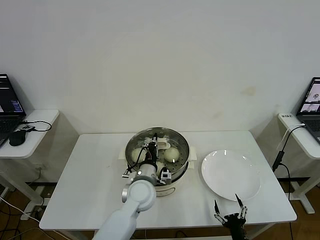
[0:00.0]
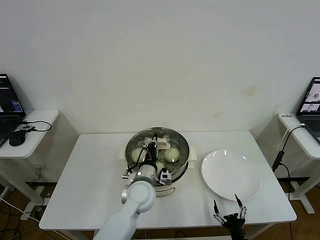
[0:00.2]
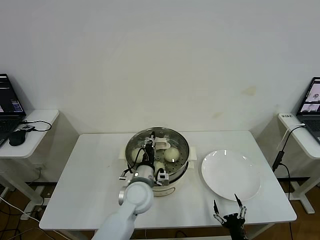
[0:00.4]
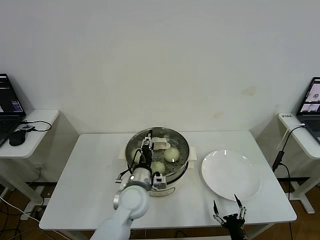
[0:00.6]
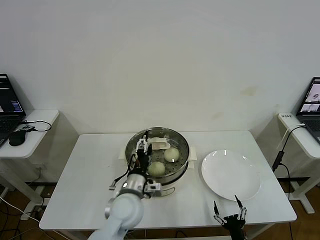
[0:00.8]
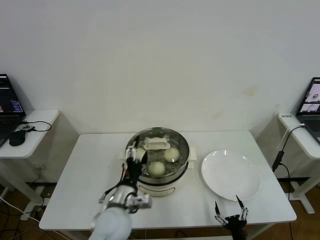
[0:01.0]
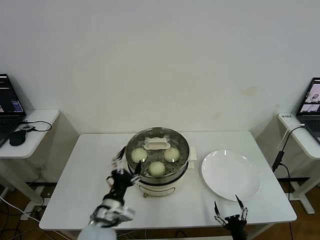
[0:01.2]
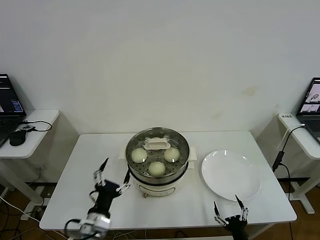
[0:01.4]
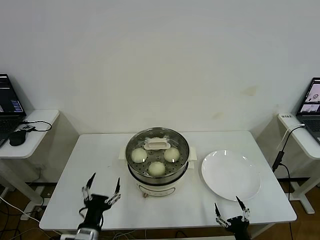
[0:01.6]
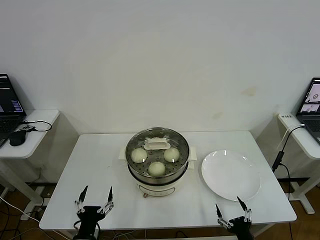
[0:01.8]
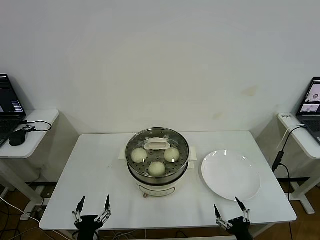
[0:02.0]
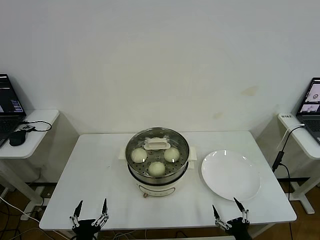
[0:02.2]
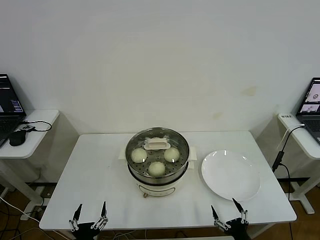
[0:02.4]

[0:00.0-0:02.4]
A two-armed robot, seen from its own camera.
0:00.0 to 0:01.2: The left gripper heads backward and to the left, covering about 15 cm, and opens.
0:01.2 to 0:02.4: The right gripper is displaced upward by approximately 5 cm. The left gripper heads backward, downward and to the left, covering roughly 20 cm.

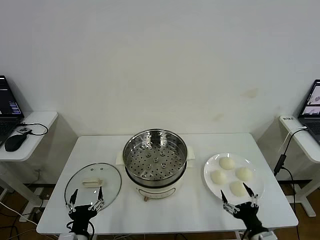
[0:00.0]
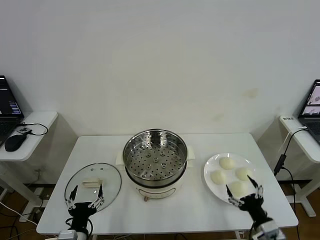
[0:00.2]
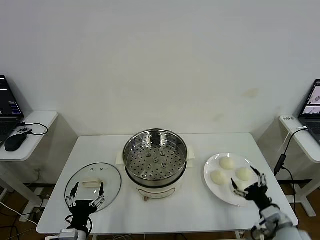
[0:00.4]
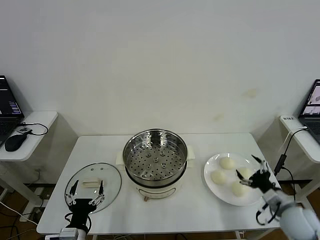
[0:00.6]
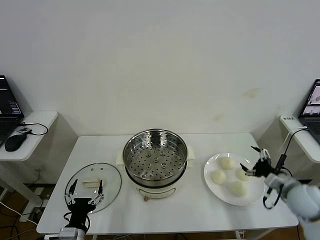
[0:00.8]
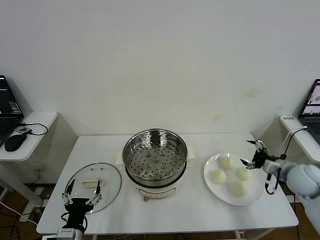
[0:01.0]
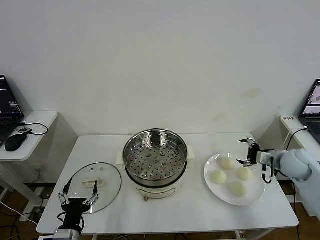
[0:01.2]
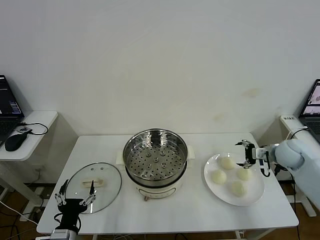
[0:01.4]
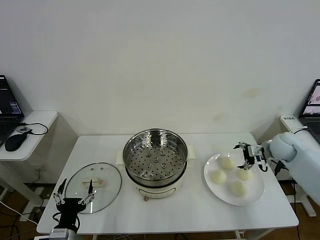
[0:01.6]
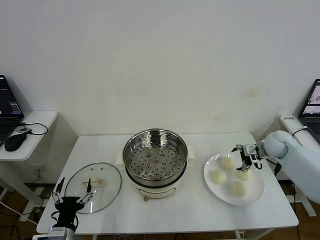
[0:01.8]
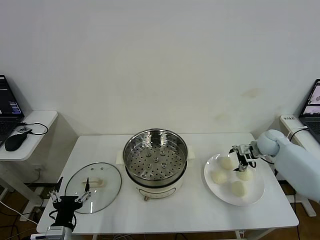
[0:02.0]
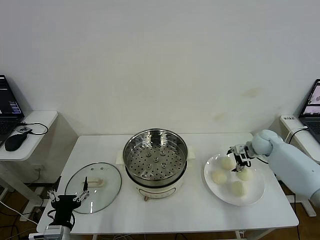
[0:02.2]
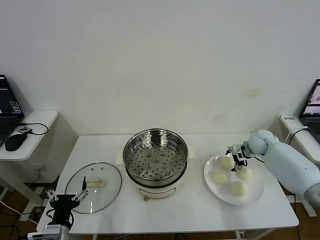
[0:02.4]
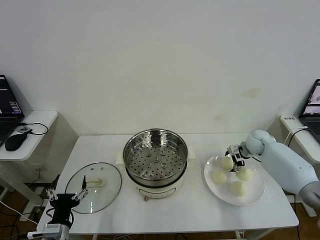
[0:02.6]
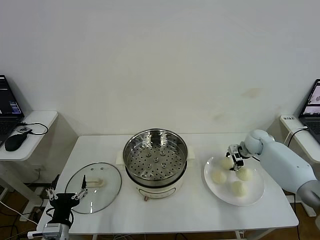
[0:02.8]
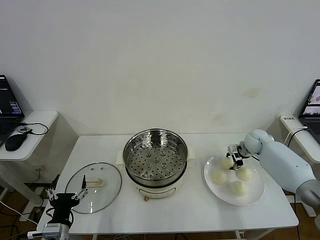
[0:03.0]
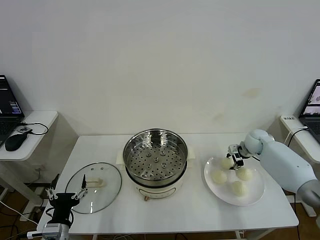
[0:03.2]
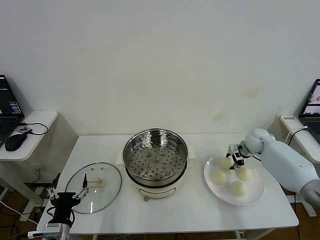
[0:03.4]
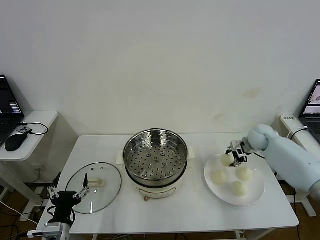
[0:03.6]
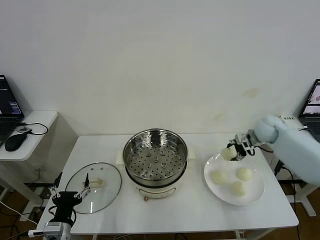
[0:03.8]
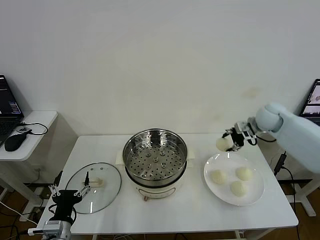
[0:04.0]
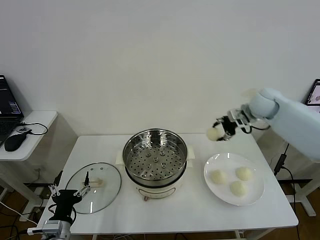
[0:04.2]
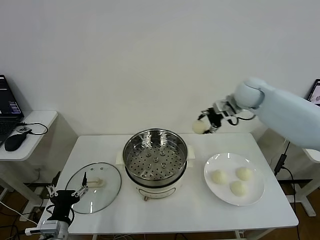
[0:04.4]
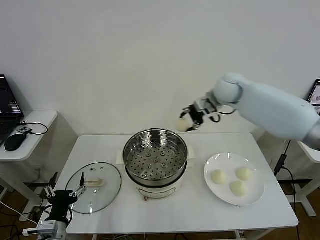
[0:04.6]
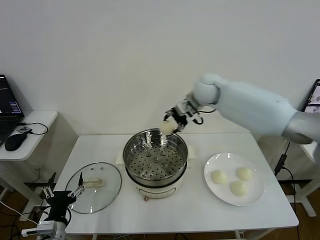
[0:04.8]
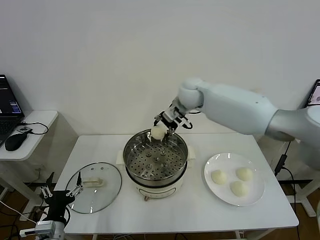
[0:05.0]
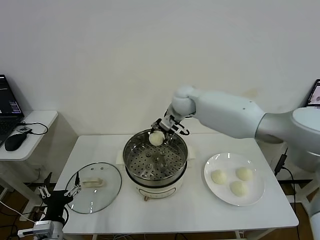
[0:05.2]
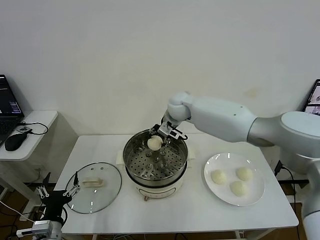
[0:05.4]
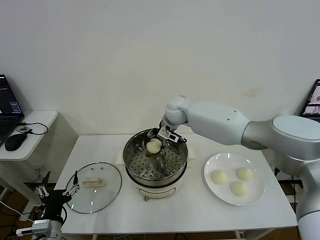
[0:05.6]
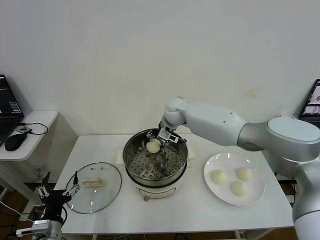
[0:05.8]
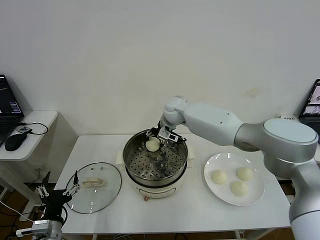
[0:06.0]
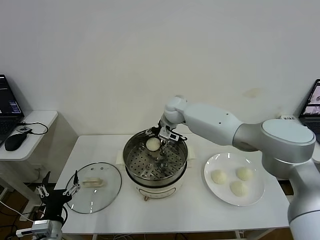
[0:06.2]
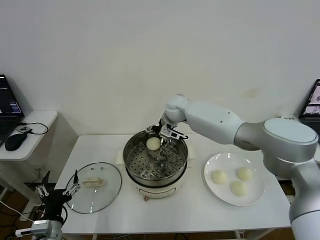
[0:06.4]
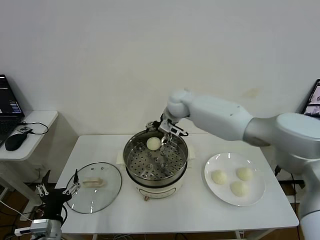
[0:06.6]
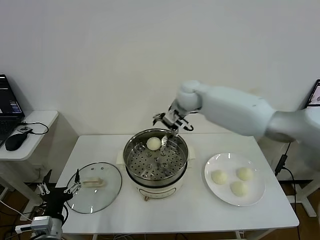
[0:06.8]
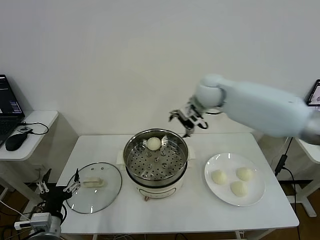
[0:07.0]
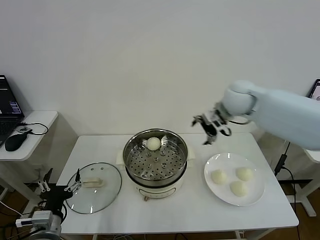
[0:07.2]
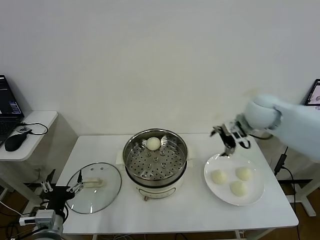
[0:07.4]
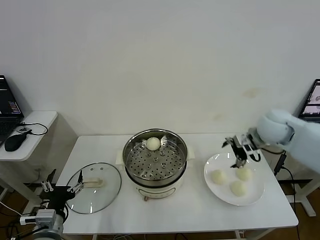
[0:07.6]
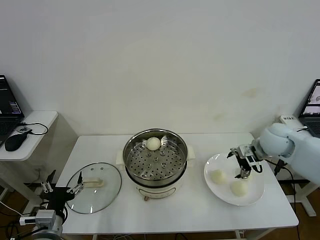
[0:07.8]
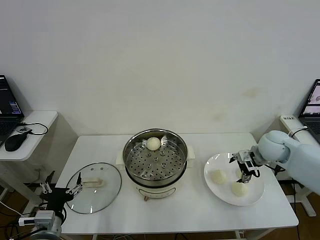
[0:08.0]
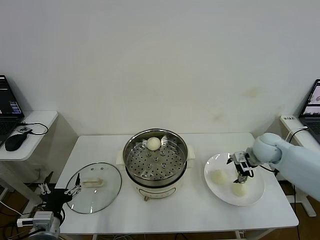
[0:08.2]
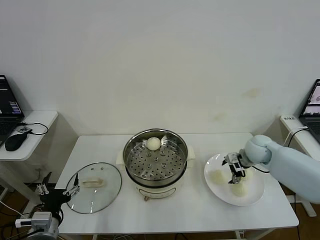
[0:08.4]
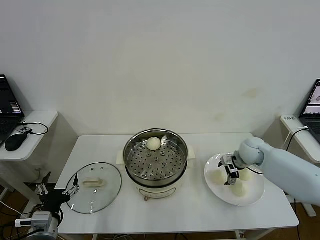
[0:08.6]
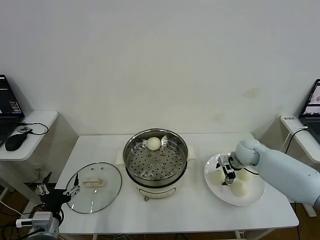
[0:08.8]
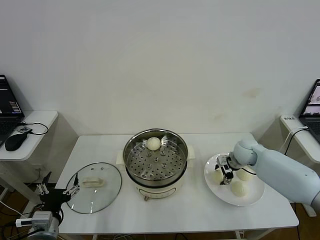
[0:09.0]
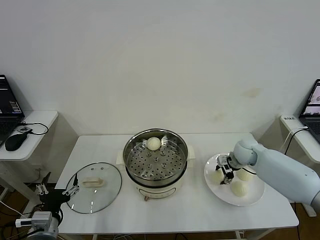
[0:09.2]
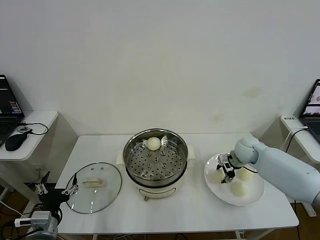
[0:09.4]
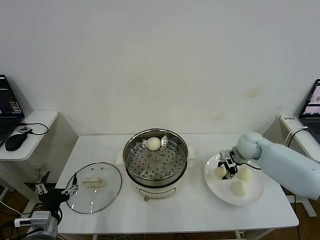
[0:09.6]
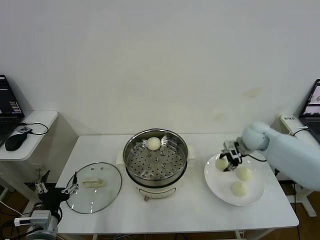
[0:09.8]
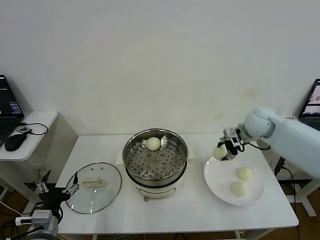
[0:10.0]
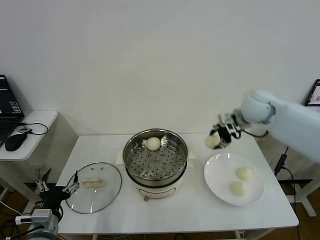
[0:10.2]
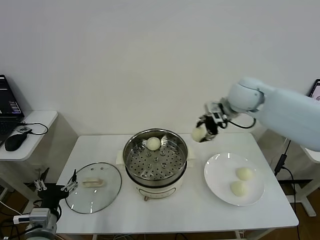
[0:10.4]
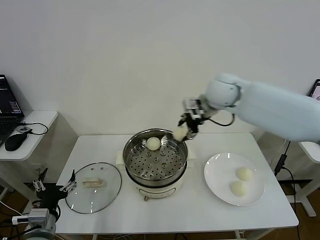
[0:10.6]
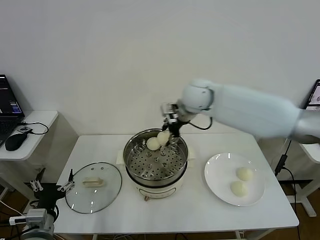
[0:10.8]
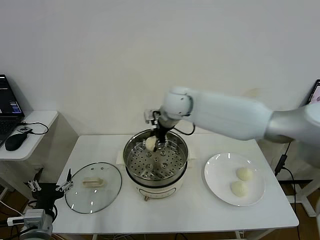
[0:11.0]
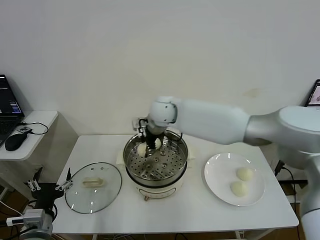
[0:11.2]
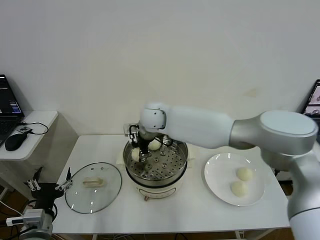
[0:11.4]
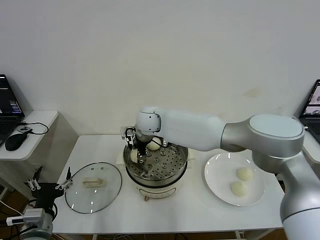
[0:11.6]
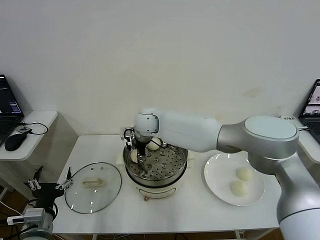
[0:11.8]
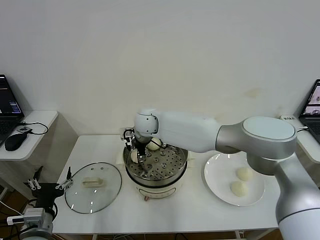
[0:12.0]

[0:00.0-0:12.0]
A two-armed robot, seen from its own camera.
Step, 0:00.0 to 0:03.2: Grasp the baozi in the plate with right gripper.
Step, 0:03.4 to 0:06.2: Place the baozi on the steamer with right gripper.
Step, 0:06.4 to 0:09.2: Grasp the baozi in the plate with right gripper.
0:01.6 to 0:03.0: The right gripper travels forward and downward by some 10 cm, and closes its fingers.
0:03.0 to 0:04.4: The right gripper moves upward and to the left, roughly 30 cm.
0:04.4 to 0:06.0: The right gripper shifts about 20 cm to the left and downward.
0:06.0 to 0:07.6: The right gripper shifts roughly 35 cm to the right and backward, and opens.
0:07.6 to 0:09.0: The right gripper heads downward, covering some 15 cm, and closes up.
0:09.0 to 0:10.4: The right gripper moves upward and to the left, roughly 30 cm.
0:10.4 to 0:12.0: The right gripper shifts roughly 25 cm to the left and downward, and opens up.

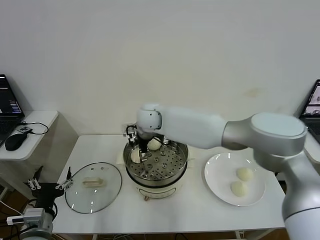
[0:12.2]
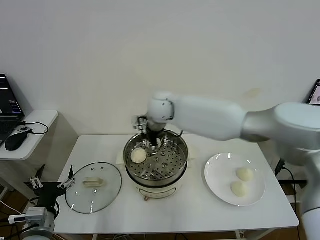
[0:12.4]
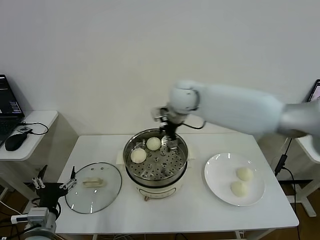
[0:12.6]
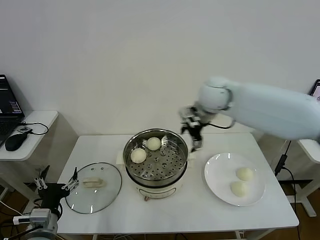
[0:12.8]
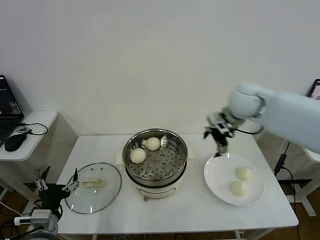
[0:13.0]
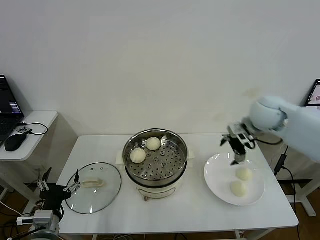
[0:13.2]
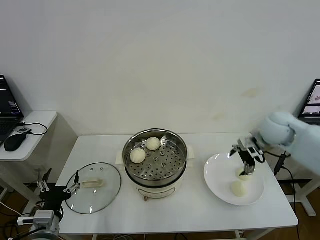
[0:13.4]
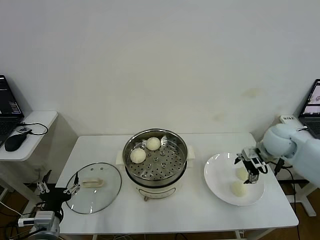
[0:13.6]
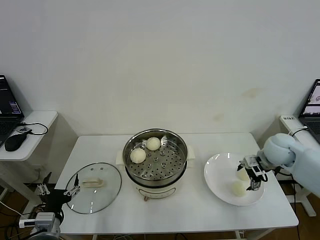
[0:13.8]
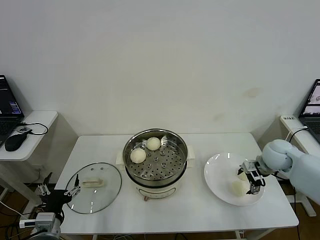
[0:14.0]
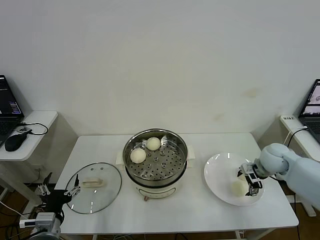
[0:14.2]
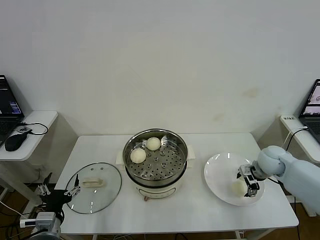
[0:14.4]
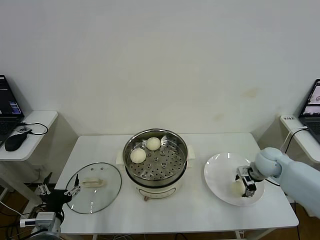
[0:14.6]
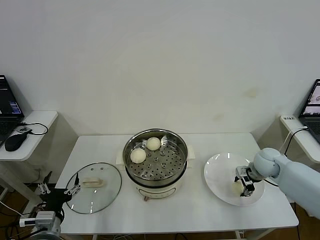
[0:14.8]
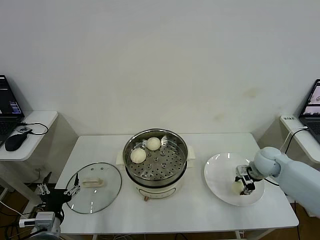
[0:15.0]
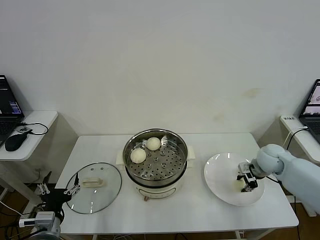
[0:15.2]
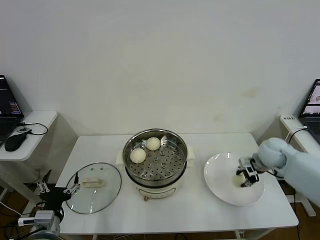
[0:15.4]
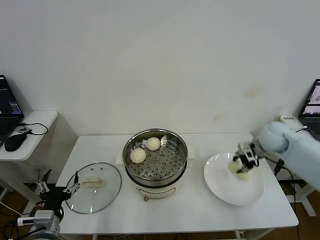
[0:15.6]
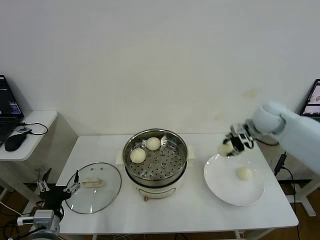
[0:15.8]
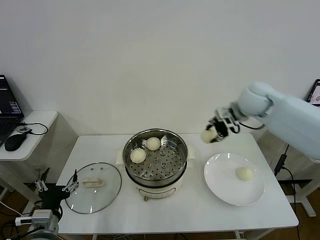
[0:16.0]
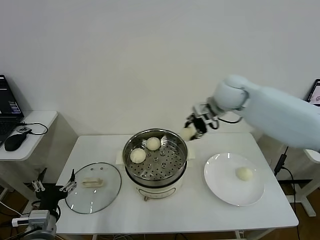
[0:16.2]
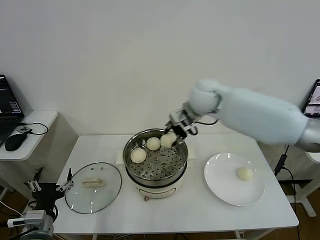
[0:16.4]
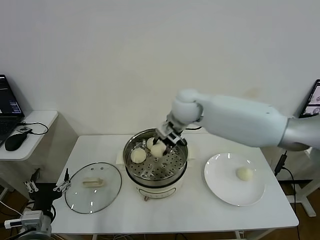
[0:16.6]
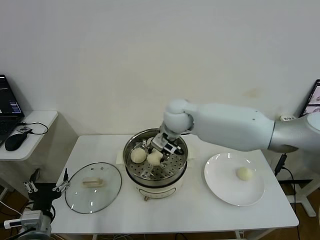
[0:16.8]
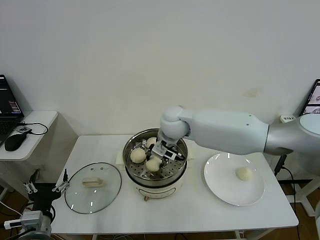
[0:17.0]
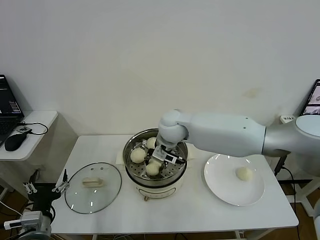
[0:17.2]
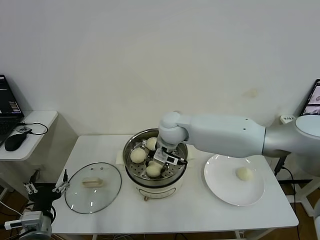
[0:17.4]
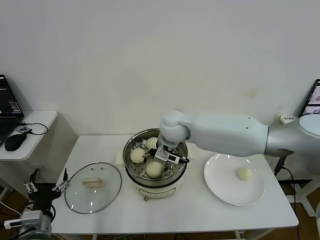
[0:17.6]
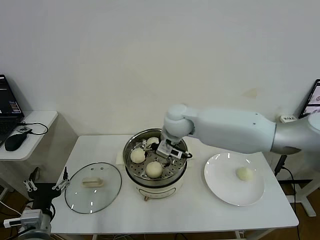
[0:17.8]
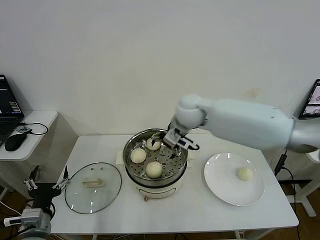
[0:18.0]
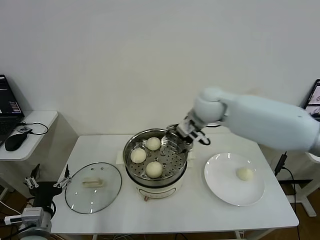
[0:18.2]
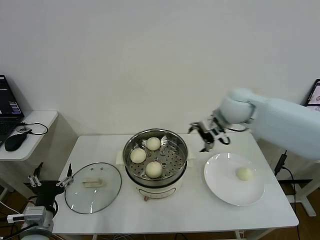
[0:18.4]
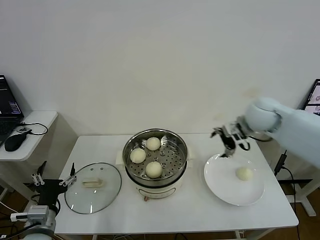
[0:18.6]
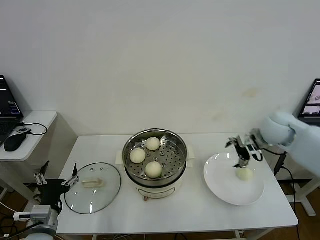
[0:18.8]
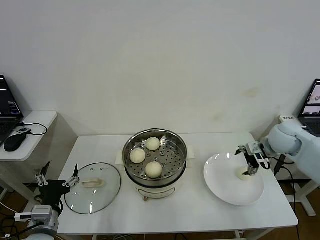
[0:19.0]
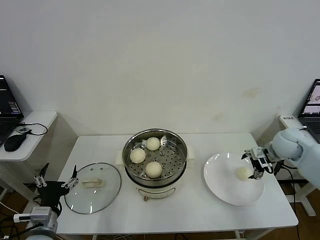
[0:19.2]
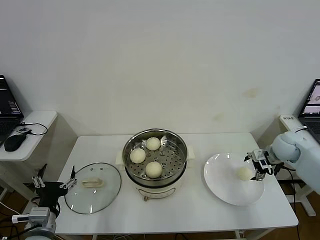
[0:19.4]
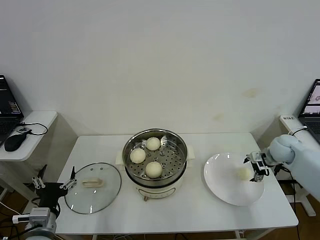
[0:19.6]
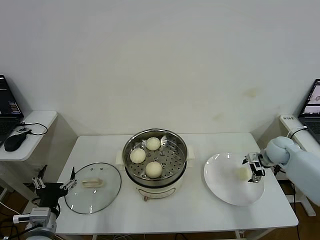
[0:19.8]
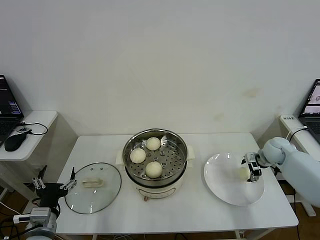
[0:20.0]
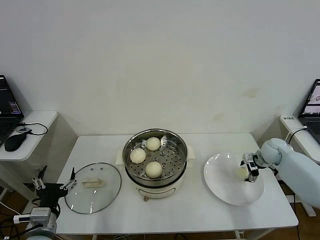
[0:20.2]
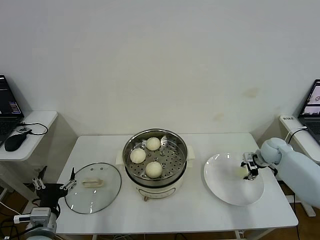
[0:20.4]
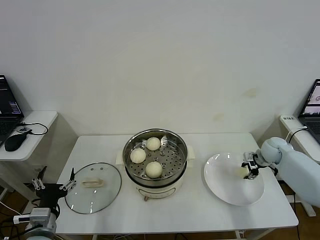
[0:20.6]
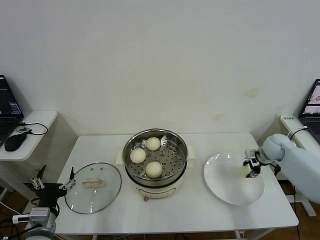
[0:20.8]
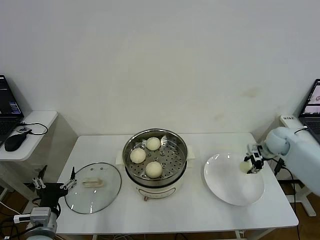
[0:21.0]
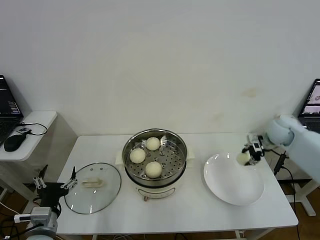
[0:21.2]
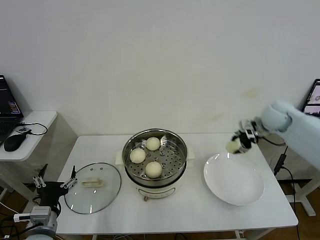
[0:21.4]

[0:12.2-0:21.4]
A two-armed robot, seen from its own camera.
Step, 0:12.2 to 0:14.8: Grasp the baozi in the plate with right gripper.
Step, 0:15.0 to 0:17.6: Place the baozi on the steamer with right gripper.
Step, 0:17.8 to 0:20.6: Grasp the baozi in the plate with right gripper.
0:12.2 to 0:13.8: The right gripper heads to the right, covering some 40 cm.
0:13.8 to 0:15.2: The right gripper closes.
0:15.2 to 0:16.8: The right gripper heads to the left and upward, covering some 35 cm.
0:16.8 to 0:18.4: The right gripper heads to the right, covering some 20 cm, and opens.
0:18.4 to 0:19.8: The right gripper is displaced to the right and downward by some 30 cm.
0:19.8 to 0:21.4: The right gripper travels upward and to the left by some 15 cm, and closes up.
